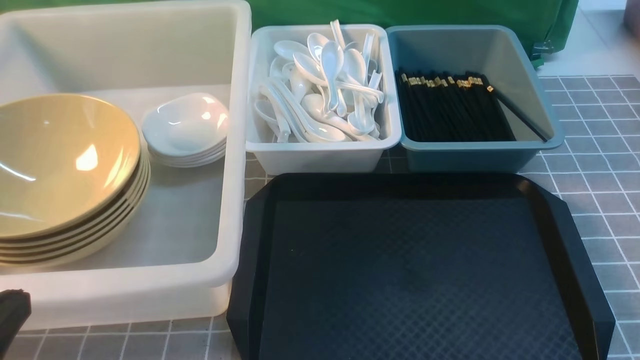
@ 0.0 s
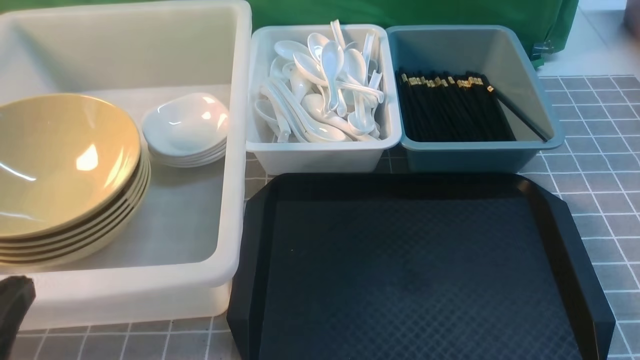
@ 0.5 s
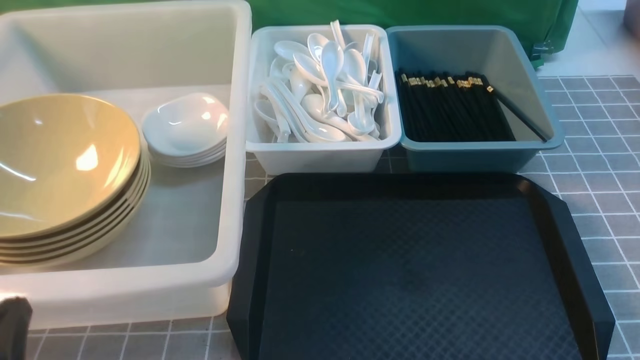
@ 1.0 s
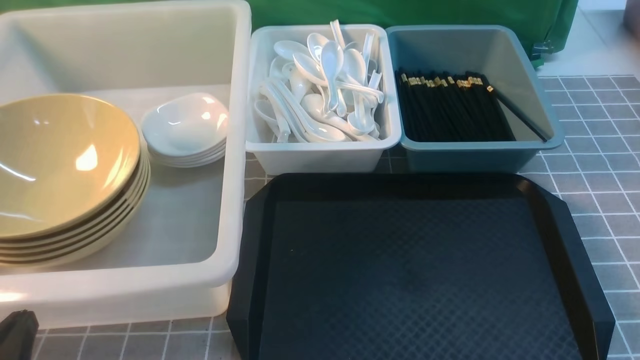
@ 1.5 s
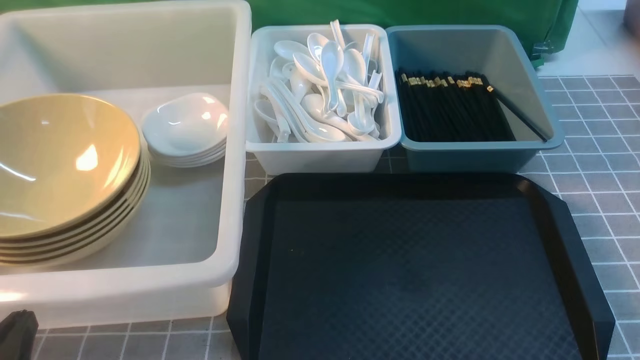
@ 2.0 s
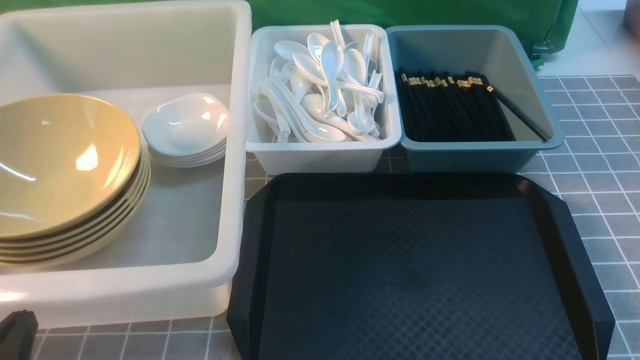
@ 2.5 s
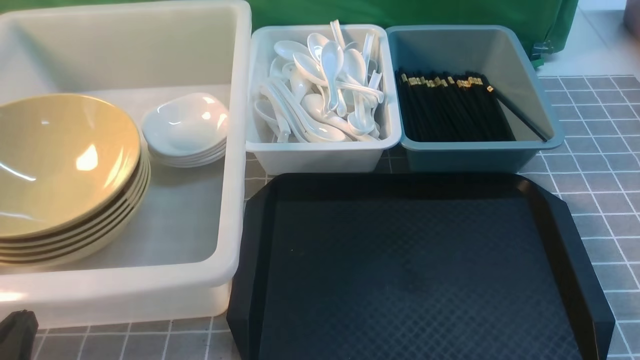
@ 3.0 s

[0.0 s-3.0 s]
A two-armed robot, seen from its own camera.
Task of the whole recording: on grey table put chopsticks spoon bowls plates into blue grey white boxes.
0.0 to 1.5 s: The left gripper travels downward by about 10 cm.
1.5 to 3.0 s: Both grippers stay put.
